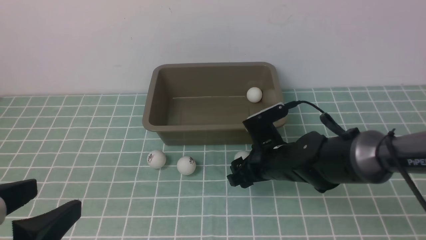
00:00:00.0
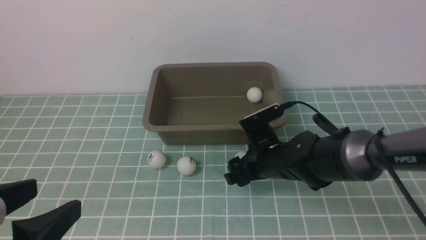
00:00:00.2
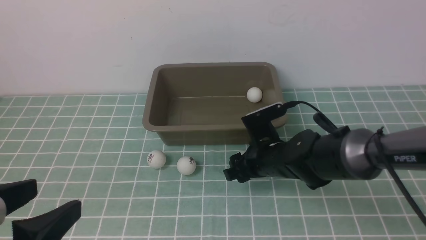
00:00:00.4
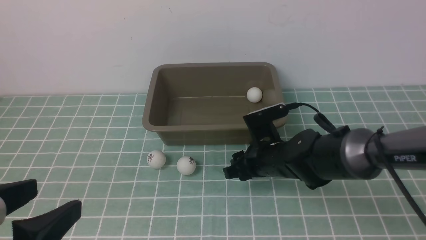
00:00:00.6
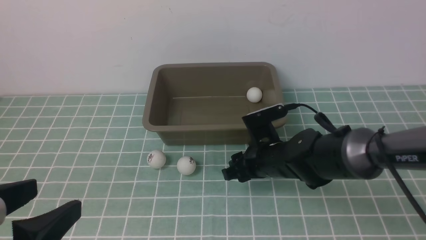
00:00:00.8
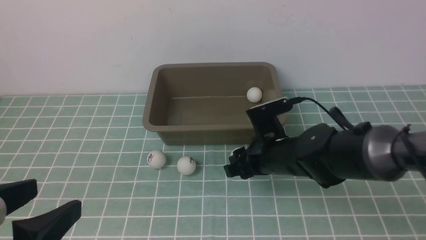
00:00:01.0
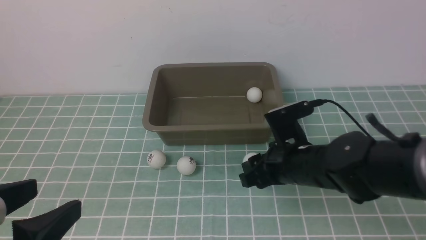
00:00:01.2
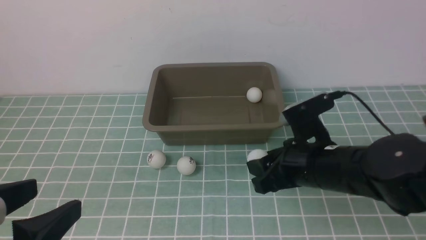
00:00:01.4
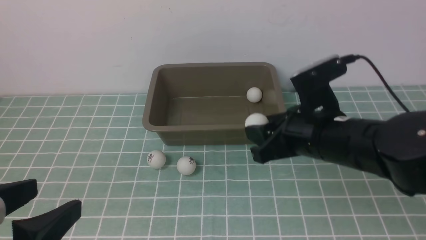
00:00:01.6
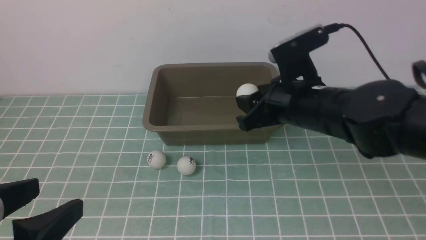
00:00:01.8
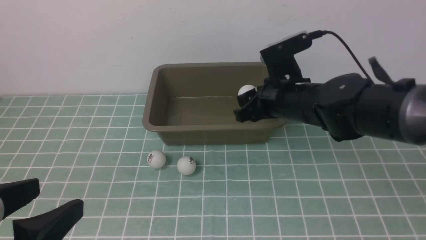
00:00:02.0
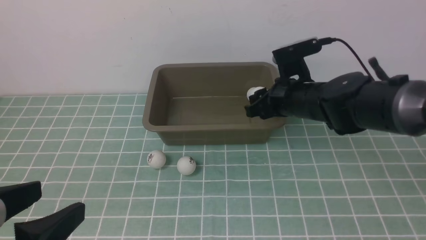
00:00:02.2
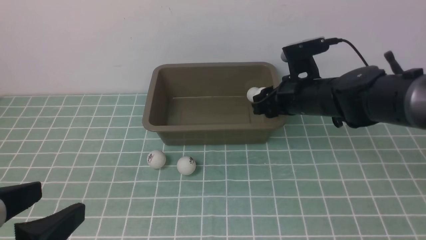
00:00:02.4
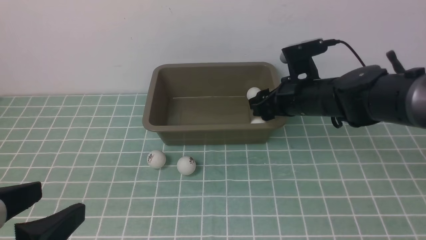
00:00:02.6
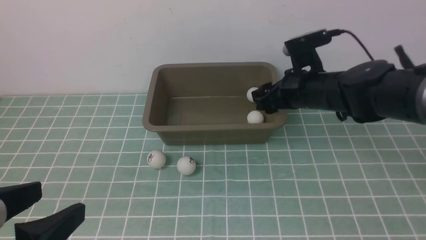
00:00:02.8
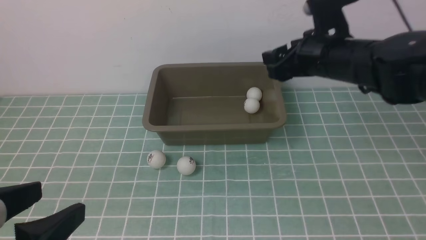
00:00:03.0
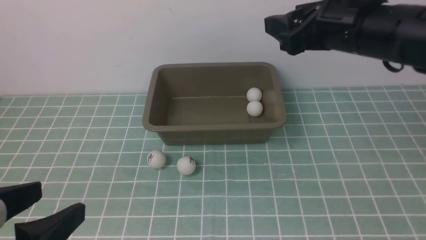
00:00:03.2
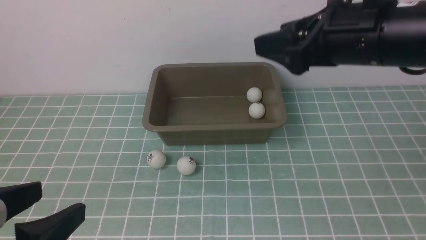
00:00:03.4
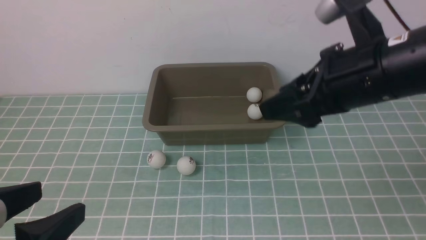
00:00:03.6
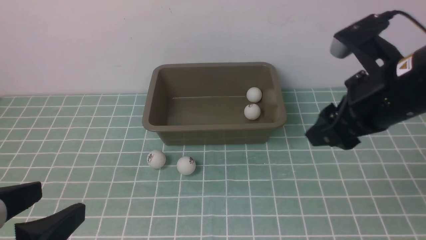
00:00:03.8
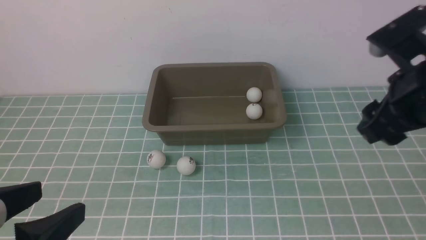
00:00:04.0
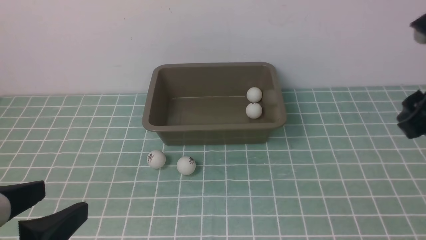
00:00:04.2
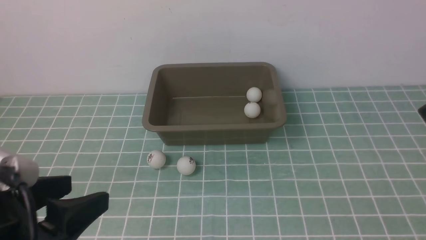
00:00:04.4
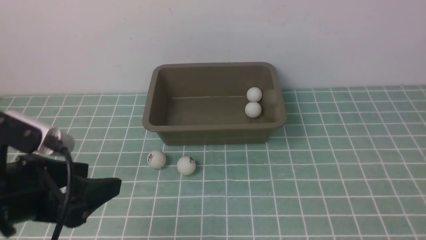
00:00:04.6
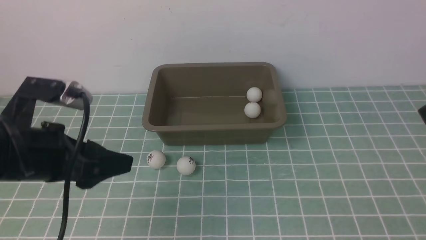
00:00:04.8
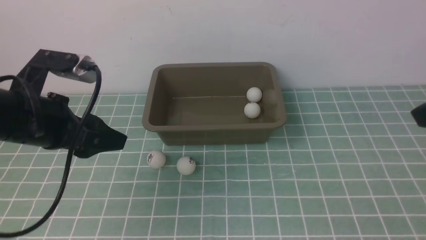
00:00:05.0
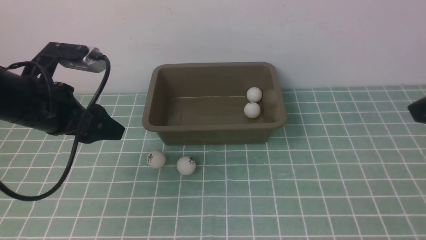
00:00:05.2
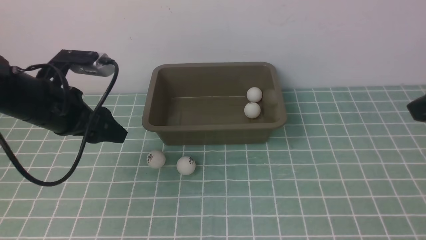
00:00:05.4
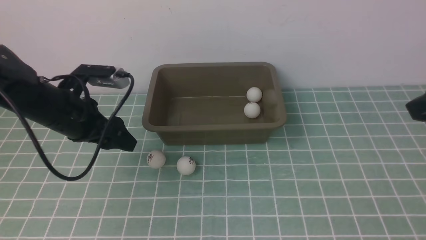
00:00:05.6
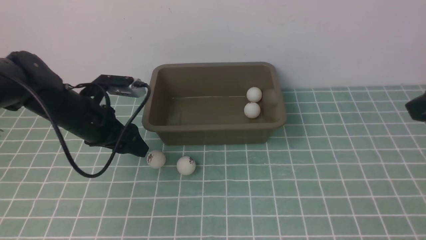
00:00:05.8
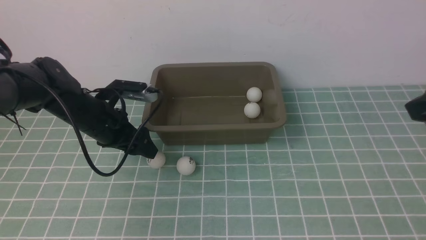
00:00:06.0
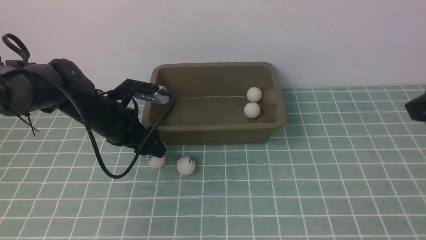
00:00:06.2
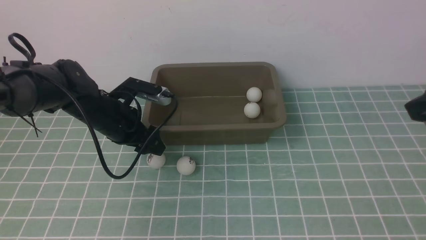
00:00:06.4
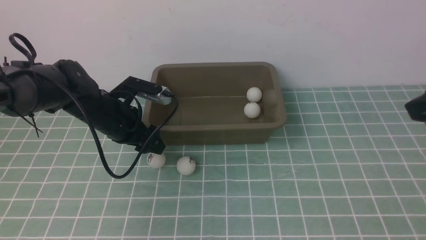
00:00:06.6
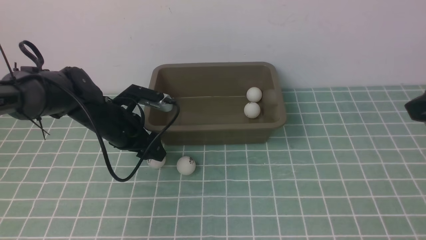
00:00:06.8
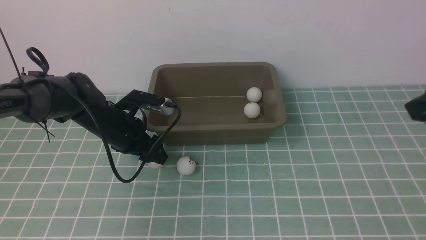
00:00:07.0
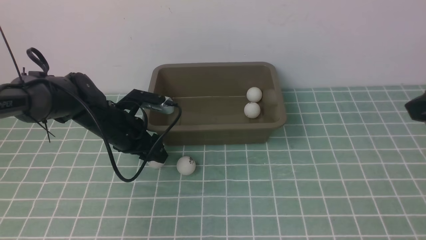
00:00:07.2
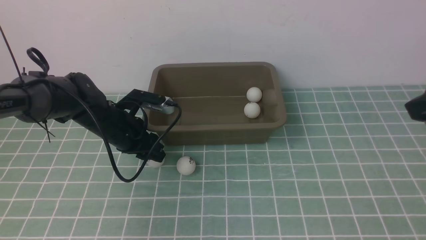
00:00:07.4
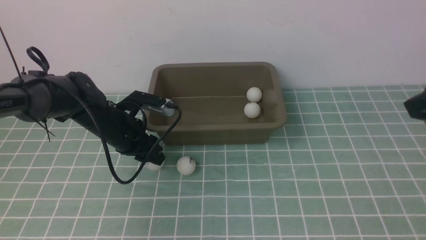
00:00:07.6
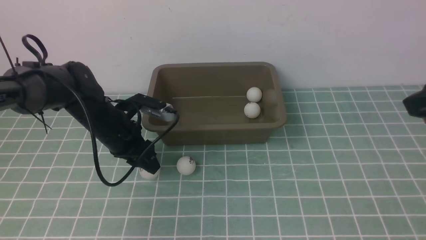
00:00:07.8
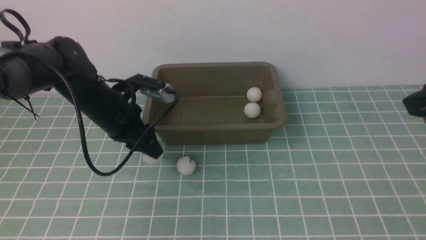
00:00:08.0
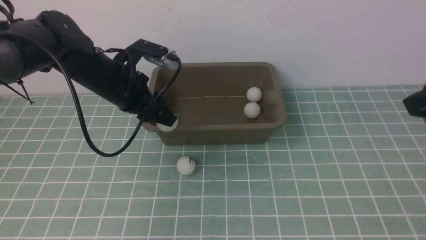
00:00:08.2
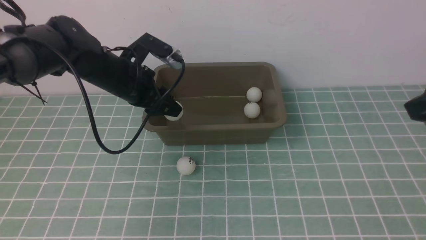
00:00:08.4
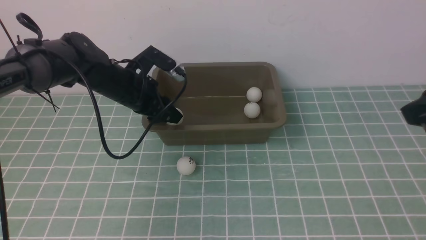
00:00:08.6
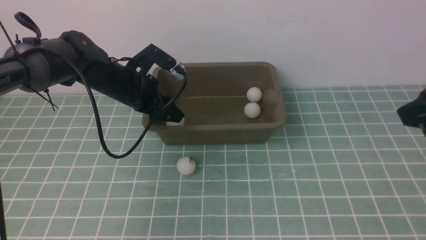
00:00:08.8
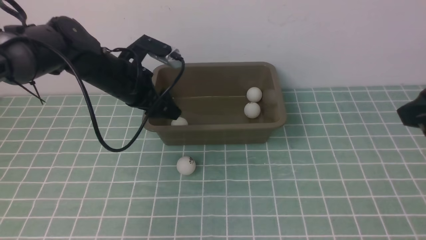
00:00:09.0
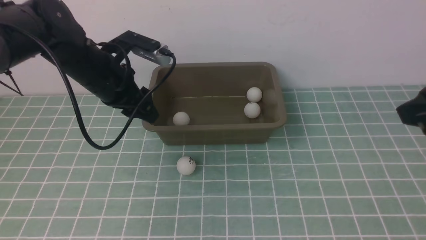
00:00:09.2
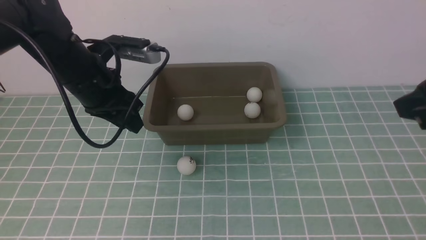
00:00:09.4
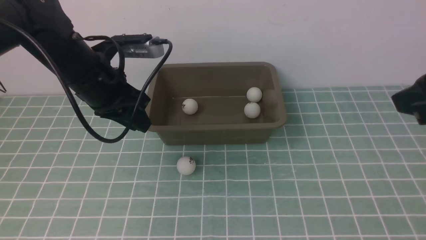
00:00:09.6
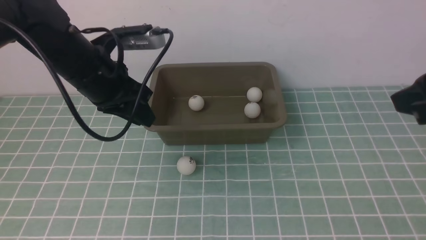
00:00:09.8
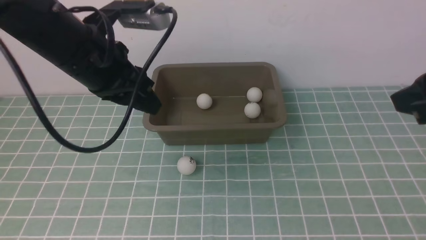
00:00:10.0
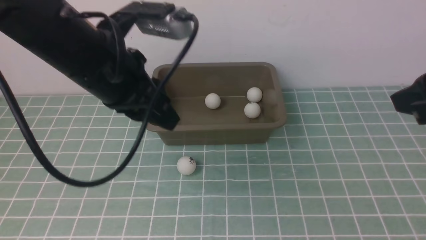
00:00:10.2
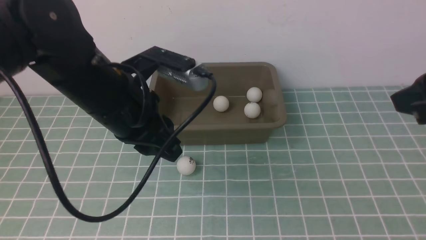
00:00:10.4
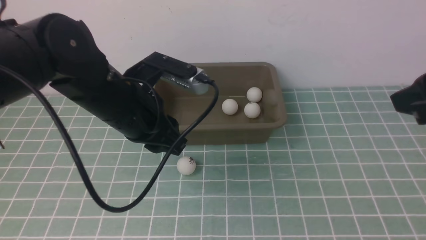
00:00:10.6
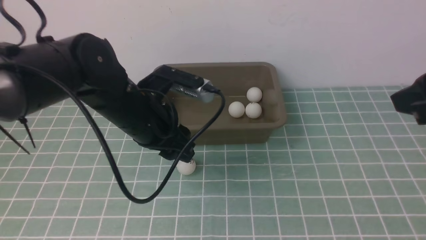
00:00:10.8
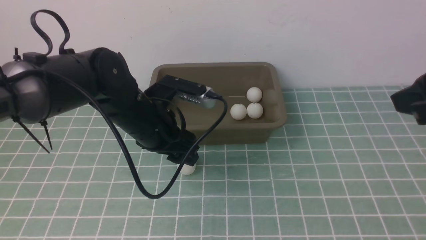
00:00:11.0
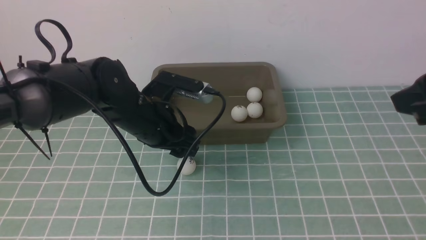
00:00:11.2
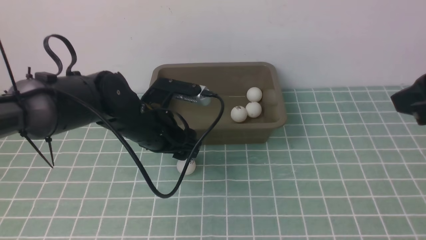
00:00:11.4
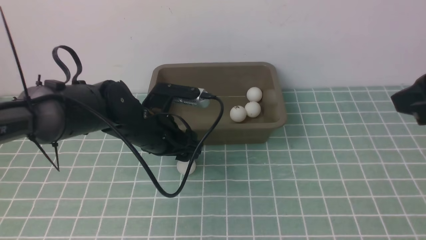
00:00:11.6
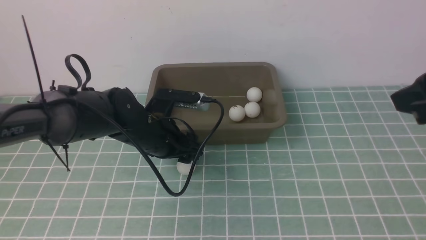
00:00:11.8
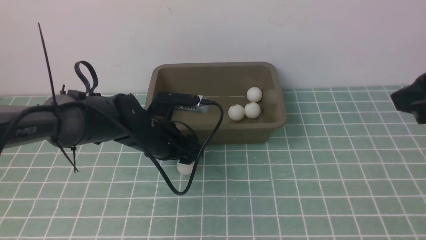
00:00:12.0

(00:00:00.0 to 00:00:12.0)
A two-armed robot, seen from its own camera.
Step, 00:00:01.2 - 00:00:02.8: use the right arm to put the table tennis ball into the box.
Step, 00:00:03.0 - 00:00:07.8: use the left arm to clamp the table tennis ball closest to it.
Step, 00:00:08.0 - 00:00:09.0: use the left arm to put the table tennis ball into the box.
00:00:00.0 - 00:00:01.6: The right gripper goes about 10 cm upward, and closes up.
00:00:01.6 - 00:00:03.0: The right gripper heads forward and upward, covering about 10 cm, and opens up.
00:00:03.0 - 00:00:04.4: The right gripper travels backward, to the right and upward by approximately 20 cm, and closes.
00:00:04.4 - 00:00:06.0: The left gripper is displaced forward and downward by about 30 cm.
00:00:06.0 - 00:00:07.6: The left gripper closes.
00:00:07.6 - 00:00:09.0: The left gripper goes about 10 cm upward.
00:00:09.0 - 00:00:10.4: The left gripper moves backward and upward, roughly 15 cm, and closes.
00:00:10.4 - 00:00:12.0: The left gripper shifts about 15 cm downward and forward, and opens.

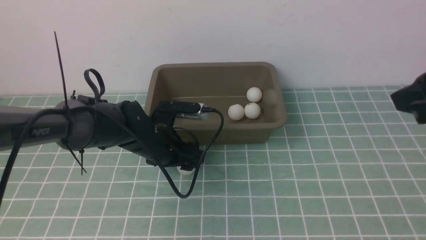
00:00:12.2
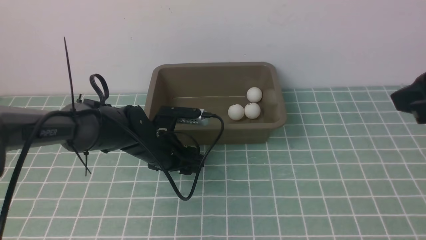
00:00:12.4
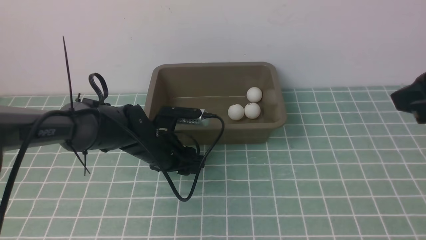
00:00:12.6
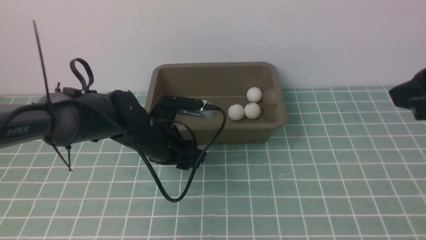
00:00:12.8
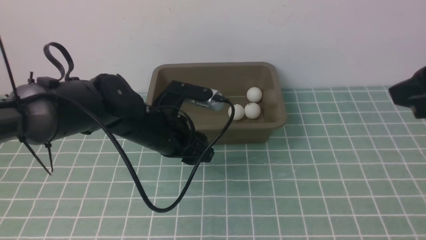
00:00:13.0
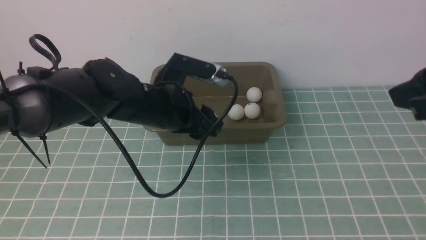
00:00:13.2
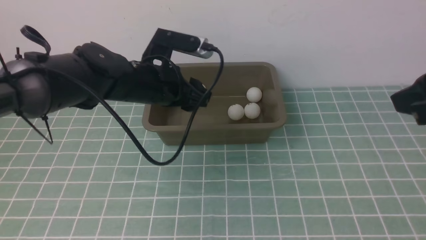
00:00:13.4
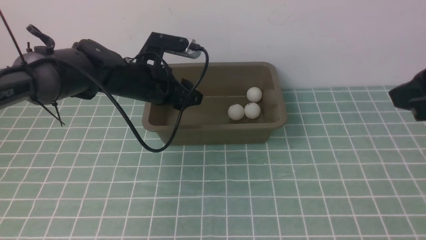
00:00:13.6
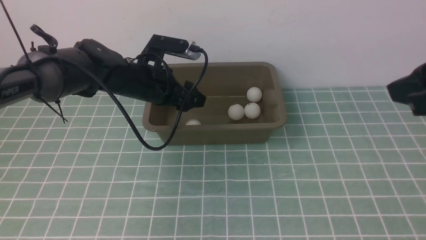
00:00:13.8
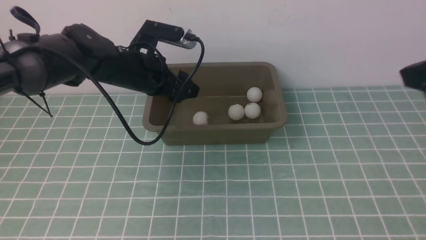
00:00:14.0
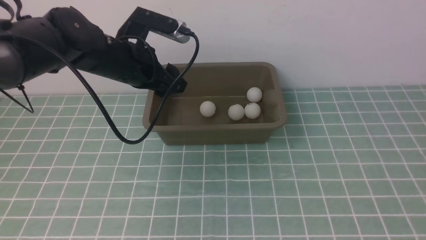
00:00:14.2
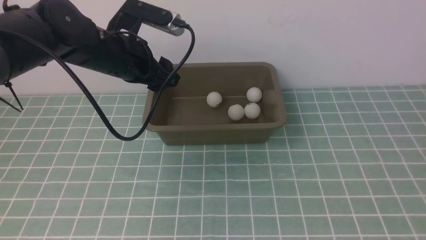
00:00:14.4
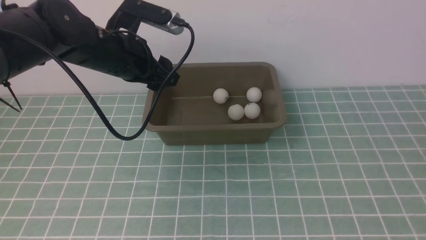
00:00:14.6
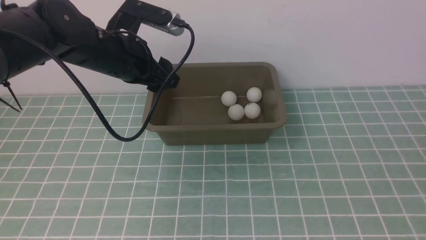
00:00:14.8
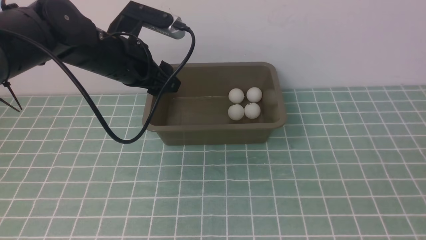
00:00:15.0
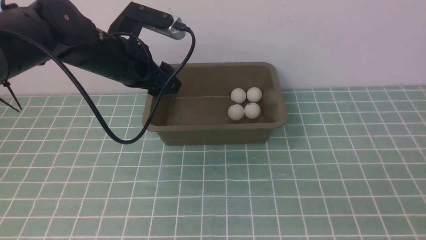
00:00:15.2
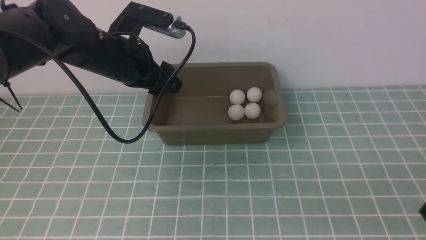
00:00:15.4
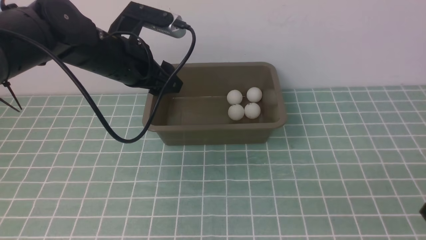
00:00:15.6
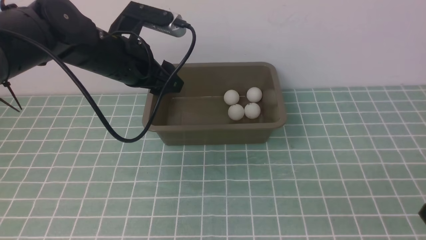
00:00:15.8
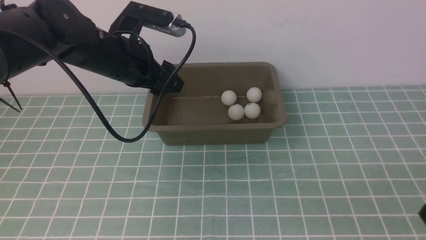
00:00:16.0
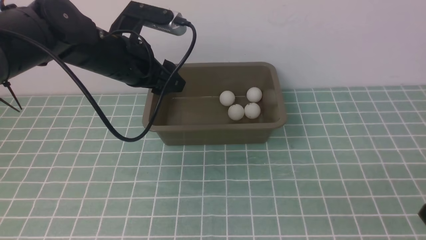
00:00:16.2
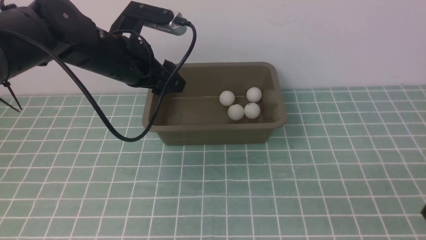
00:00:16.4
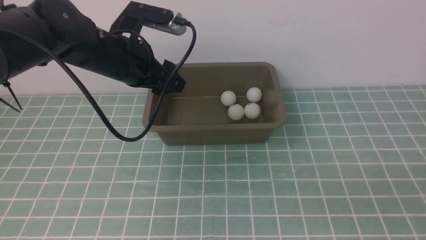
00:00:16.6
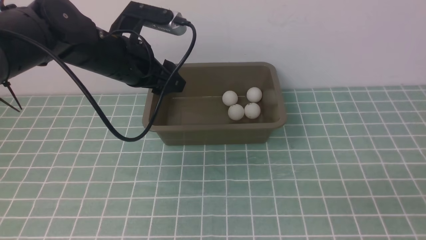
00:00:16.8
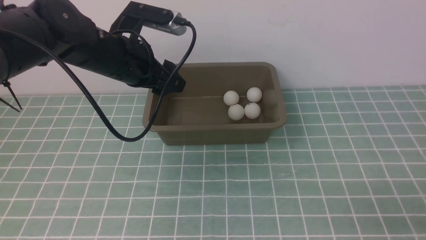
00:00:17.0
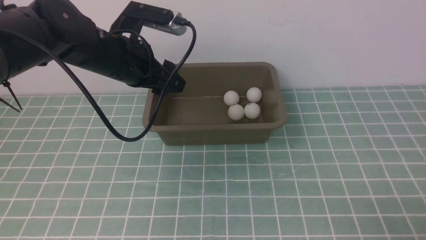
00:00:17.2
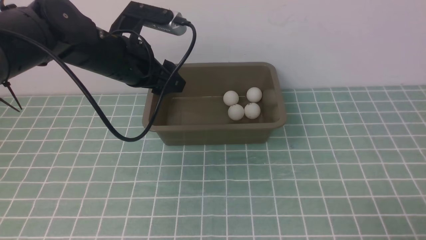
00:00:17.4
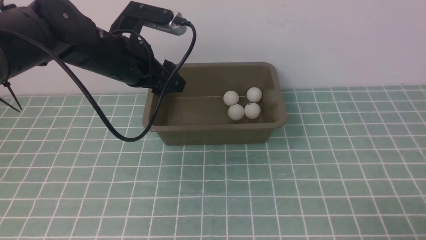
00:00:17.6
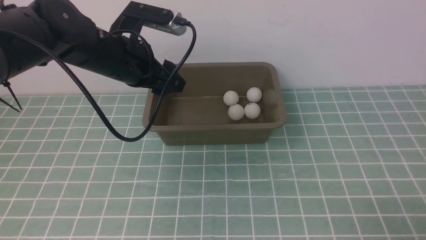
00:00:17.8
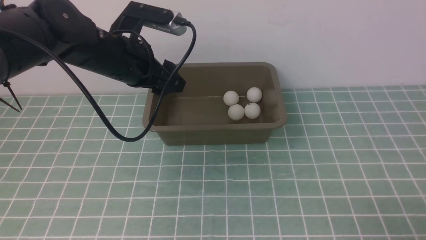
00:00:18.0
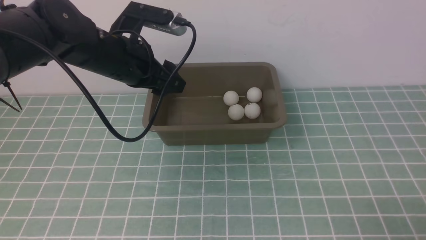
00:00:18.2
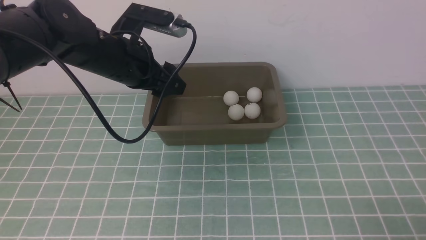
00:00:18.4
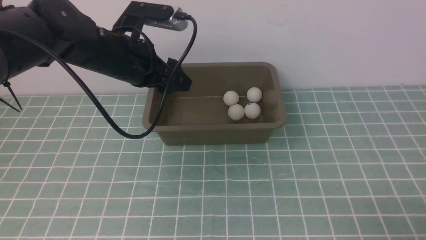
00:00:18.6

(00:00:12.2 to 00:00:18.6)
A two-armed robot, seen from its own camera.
Step, 00:00:13.2 - 00:00:14.0: use the left arm to put the table tennis ball into the box.
00:00:12.2 - 00:00:13.8: The left gripper moves upward and forward, roughly 10 cm.
00:00:13.8 - 00:00:15.4: The left gripper travels upward by approximately 5 cm. Meanwhile the right gripper is displaced downward and backward by some 20 cm.
00:00:15.4 - 00:00:17.0: The right gripper moves approximately 5 cm.
00:00:17.0 - 00:00:18.6: There are only small adjustments of the grippers.
